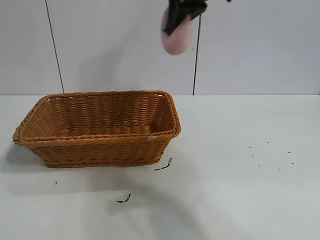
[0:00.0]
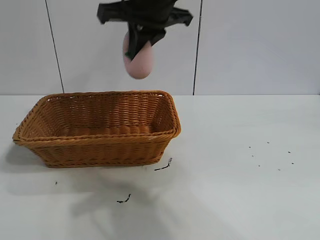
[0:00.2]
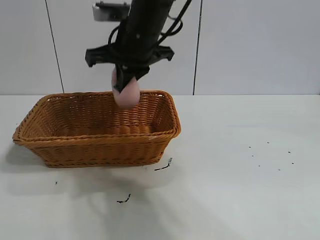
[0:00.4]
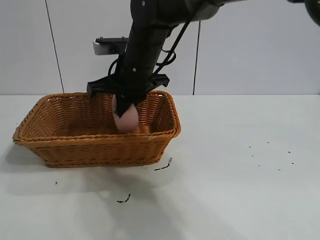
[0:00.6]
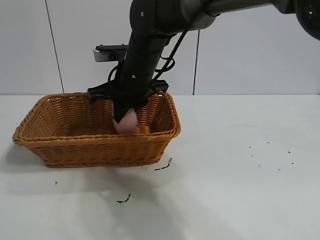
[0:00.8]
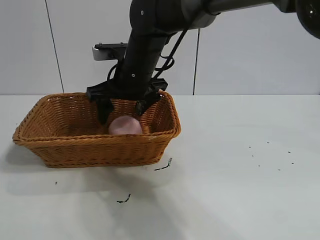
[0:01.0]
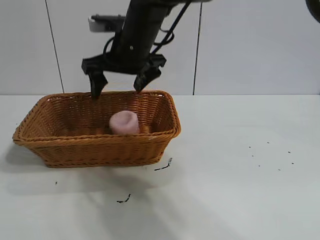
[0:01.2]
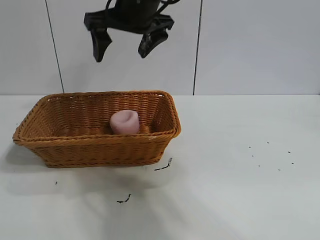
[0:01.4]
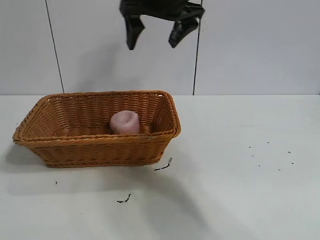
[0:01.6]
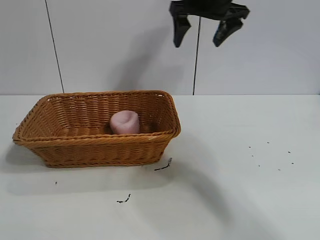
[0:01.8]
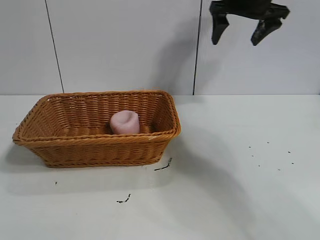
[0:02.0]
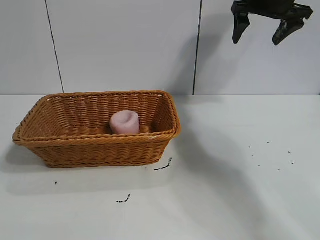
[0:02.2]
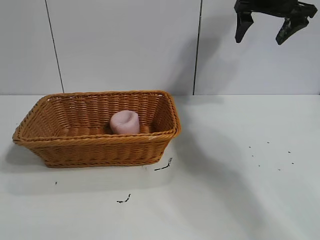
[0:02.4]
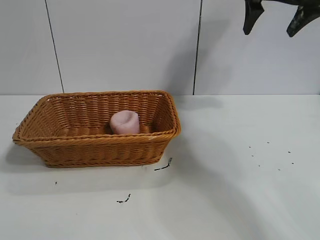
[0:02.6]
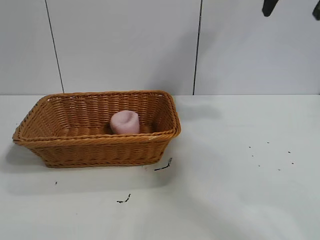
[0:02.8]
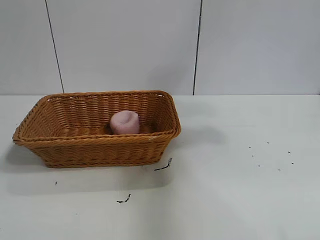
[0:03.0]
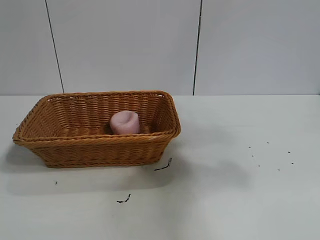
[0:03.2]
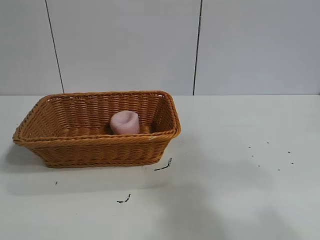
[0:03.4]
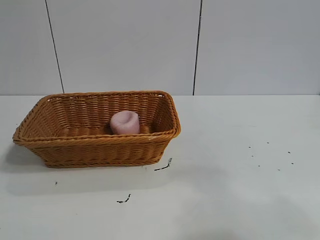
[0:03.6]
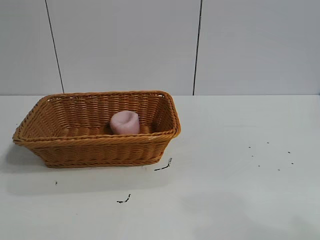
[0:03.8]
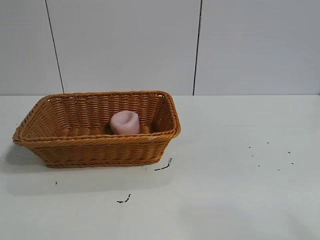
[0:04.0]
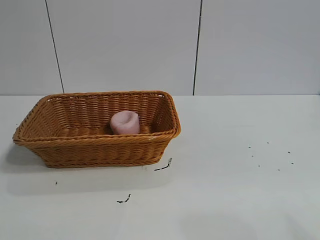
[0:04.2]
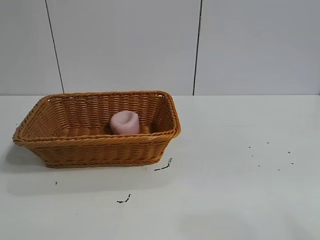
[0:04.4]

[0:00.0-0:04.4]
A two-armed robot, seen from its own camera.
Task of the whole recording: pick up the peach and put it into the basket.
Step, 0:00.0 to 0:01.0: Place the peach in the basket with right gripper.
